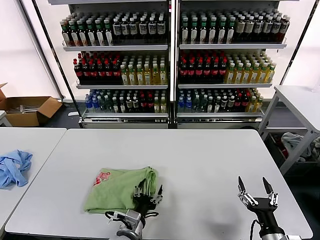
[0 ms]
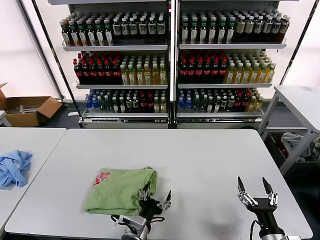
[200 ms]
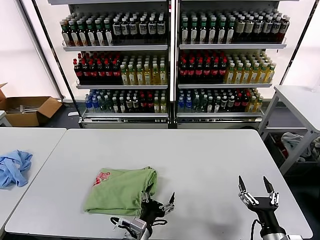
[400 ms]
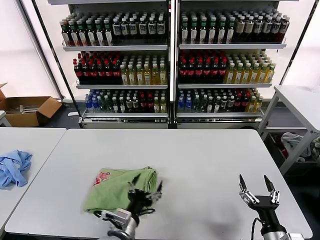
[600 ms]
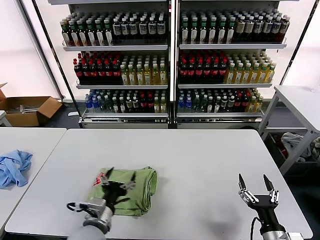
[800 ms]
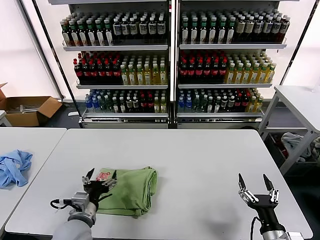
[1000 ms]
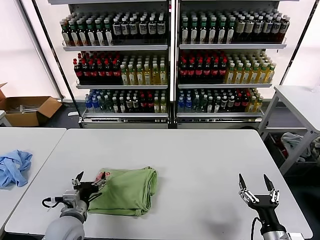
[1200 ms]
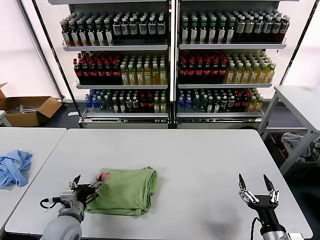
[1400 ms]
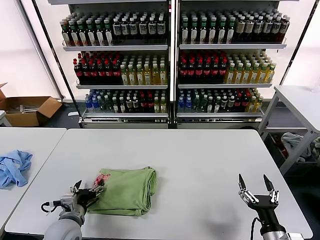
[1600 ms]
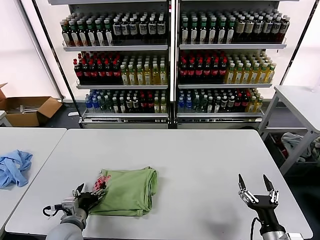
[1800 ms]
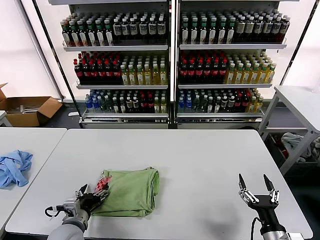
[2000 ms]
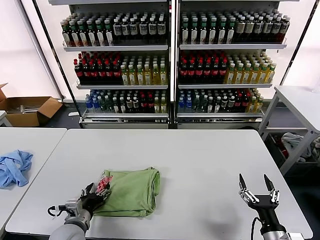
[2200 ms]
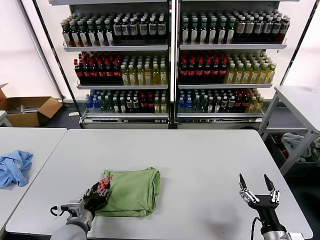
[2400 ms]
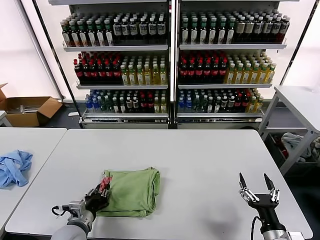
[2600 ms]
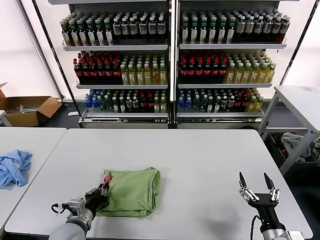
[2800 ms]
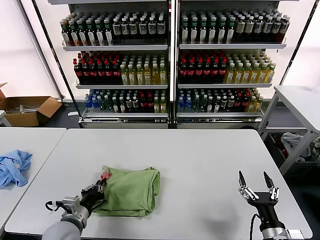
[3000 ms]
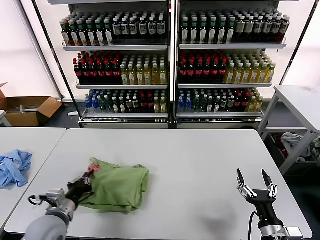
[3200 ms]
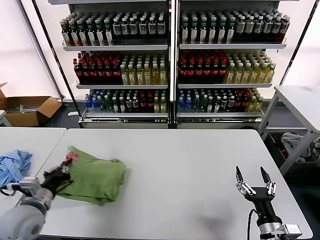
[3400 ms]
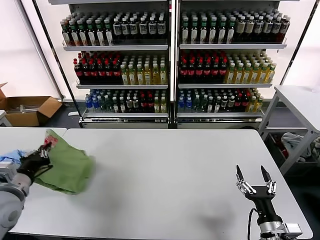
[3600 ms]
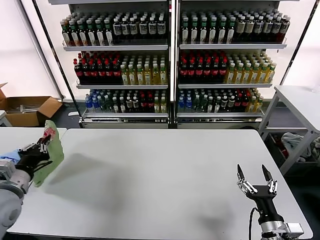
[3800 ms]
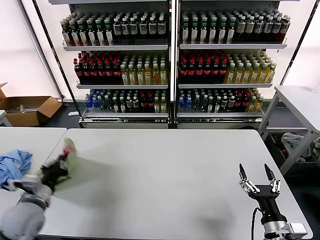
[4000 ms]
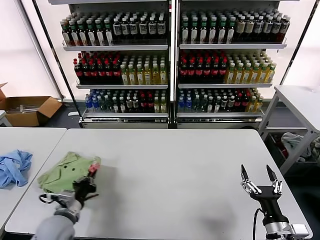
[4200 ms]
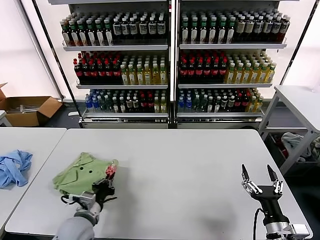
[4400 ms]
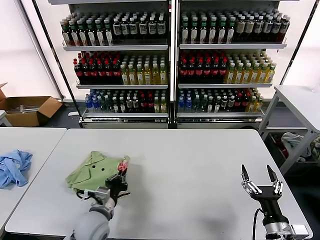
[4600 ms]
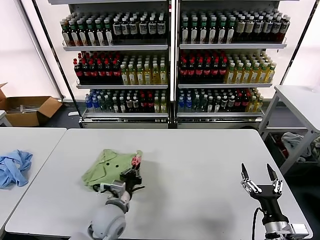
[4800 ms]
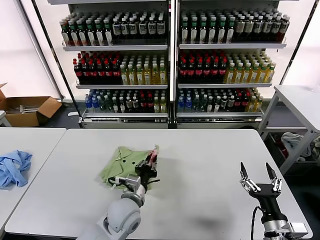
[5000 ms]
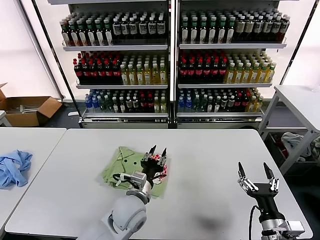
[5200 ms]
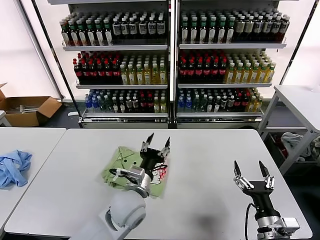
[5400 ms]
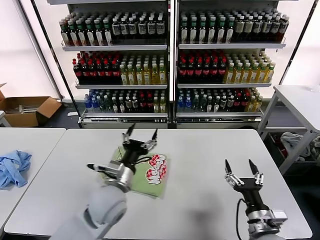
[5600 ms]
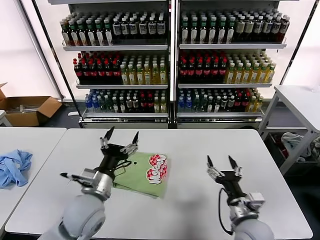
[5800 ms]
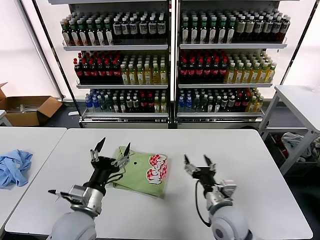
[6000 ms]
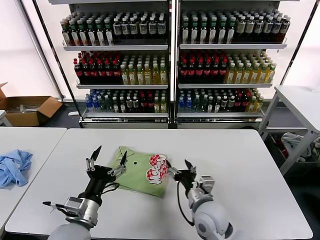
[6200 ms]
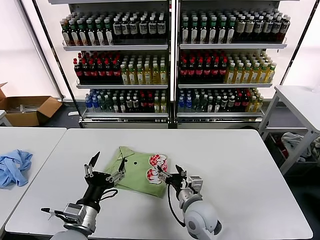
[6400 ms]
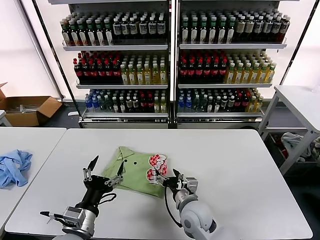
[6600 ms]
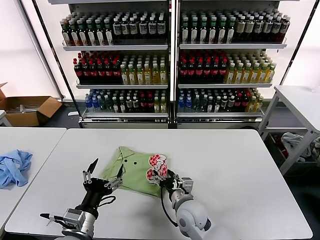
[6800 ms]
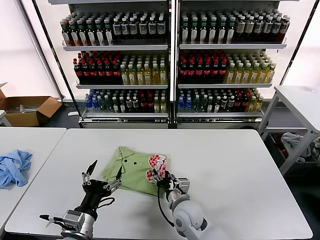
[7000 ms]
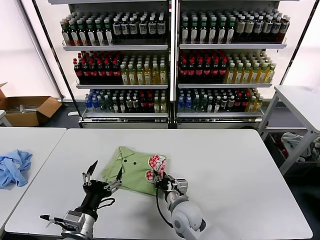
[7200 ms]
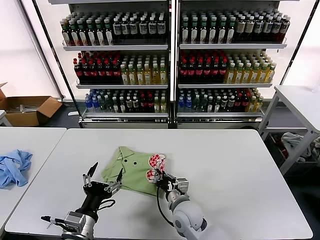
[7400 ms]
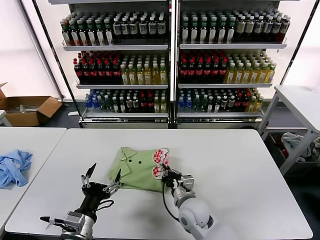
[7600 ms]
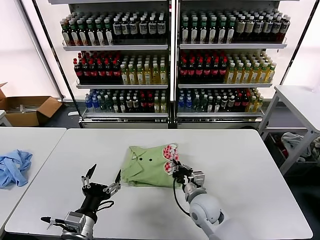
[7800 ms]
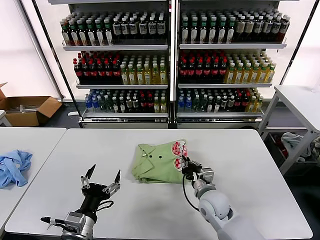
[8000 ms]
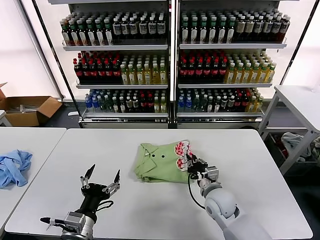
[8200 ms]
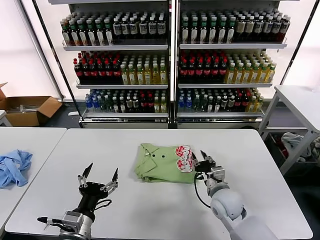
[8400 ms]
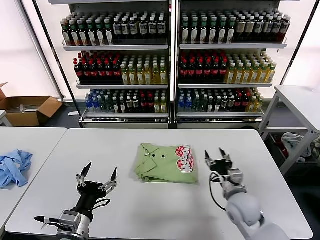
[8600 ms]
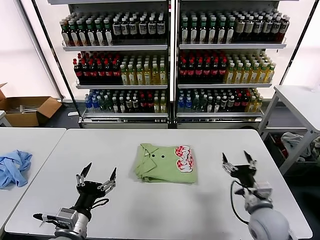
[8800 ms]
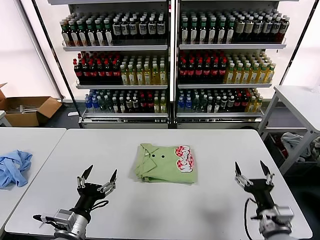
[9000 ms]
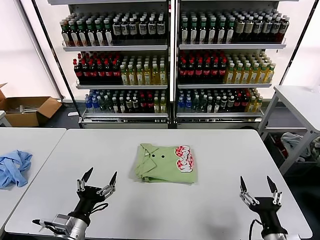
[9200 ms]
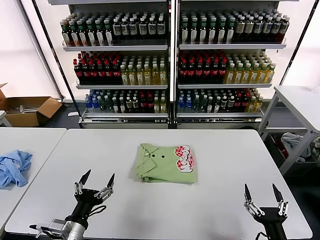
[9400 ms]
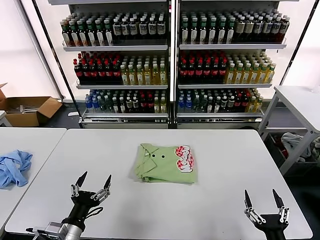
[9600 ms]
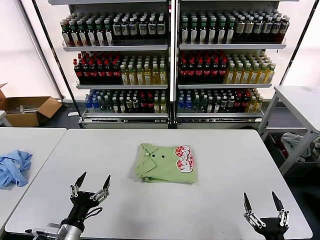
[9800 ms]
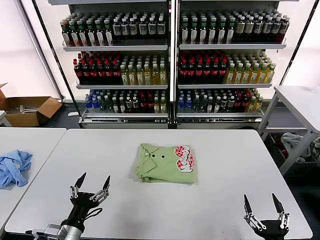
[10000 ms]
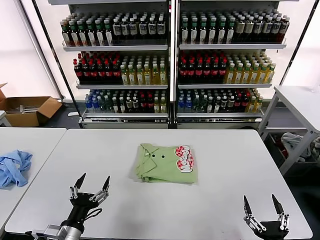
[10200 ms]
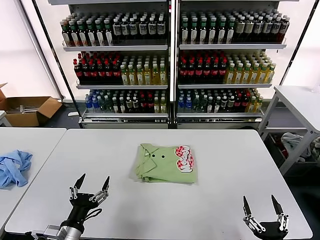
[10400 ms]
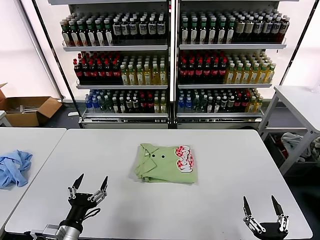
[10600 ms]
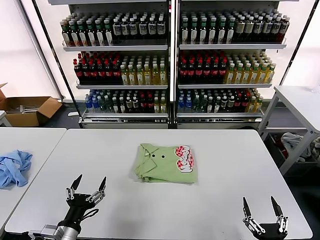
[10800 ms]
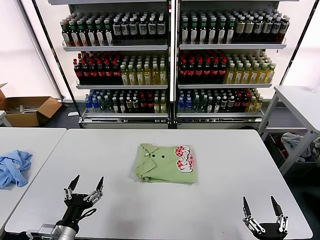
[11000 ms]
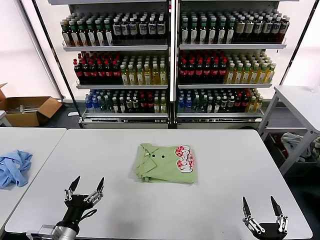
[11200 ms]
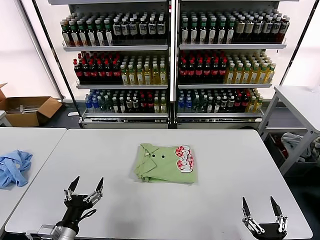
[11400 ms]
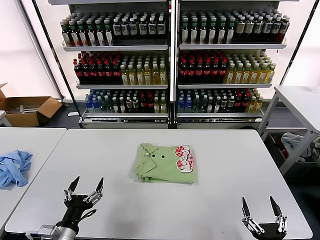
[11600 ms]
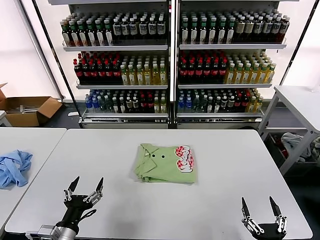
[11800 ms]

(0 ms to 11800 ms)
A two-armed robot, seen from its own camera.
Task of the whole recording: fold and organize the clothes.
Step, 200 ms - 5000 ms: Flip the folded clothes over with left gripper.
Step, 5200 ms - 8400 ms: Drag the clothes to the center of the table.
0 ms - 1400 ms: The left gripper is displaced to the left by roughly 15 cm.
1400 ms - 3000 ms: The left gripper closes.
3000 ms - 4400 ms: The left gripper goes upward and returns, approximately 15 cm each way.
4400 ms - 6000 ms: The right gripper goes approximately 15 cm to the left and forward, while the left gripper shifts some 10 cm upward, moves about 20 cm to the right and comes back, and opens.
6000 ms - 7400 ms: The left gripper heads backward, covering roughly 5 cm; the right gripper travels to the left and downward by roughly 15 cm, and closes.
7400 ms - 8800 ms: The right gripper shifts some 20 cm to the right, and opens its fingers.
8800 ms - 10400 ms: The right gripper goes some 20 cm backward; the left gripper shifts by about 5 cm.
10400 ms - 11800 ms: Both grippers stay put.

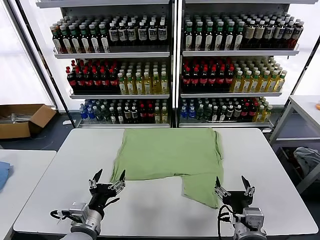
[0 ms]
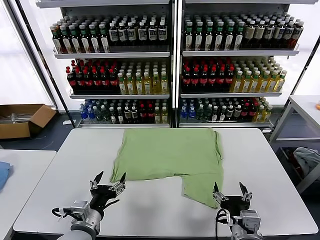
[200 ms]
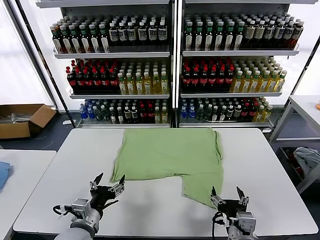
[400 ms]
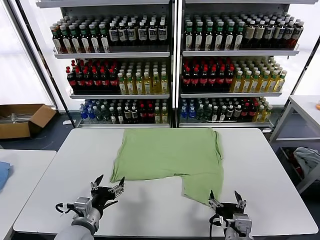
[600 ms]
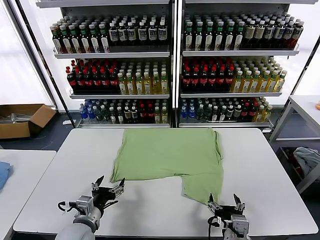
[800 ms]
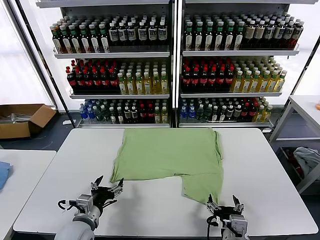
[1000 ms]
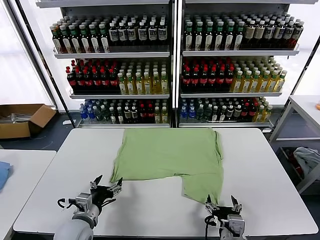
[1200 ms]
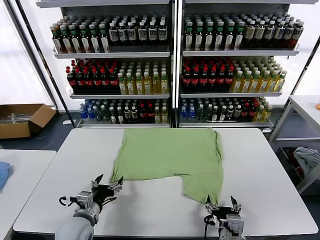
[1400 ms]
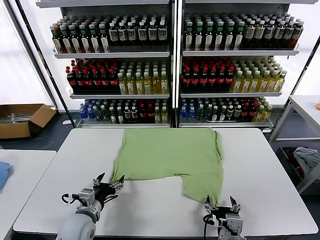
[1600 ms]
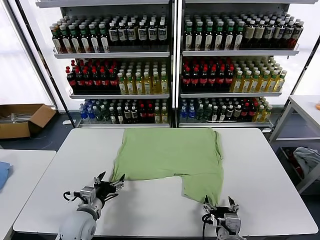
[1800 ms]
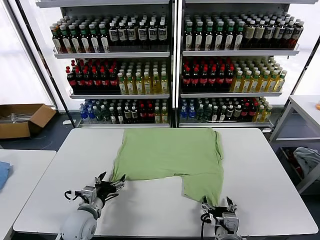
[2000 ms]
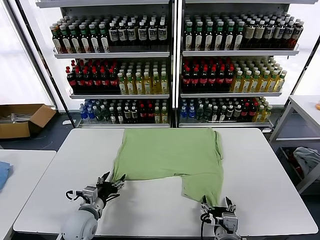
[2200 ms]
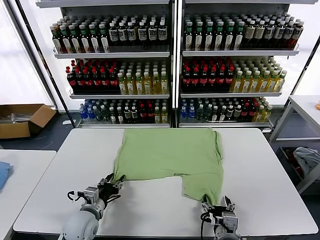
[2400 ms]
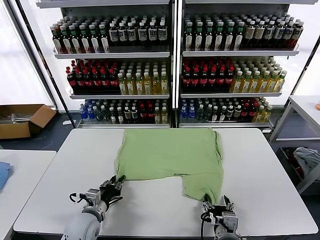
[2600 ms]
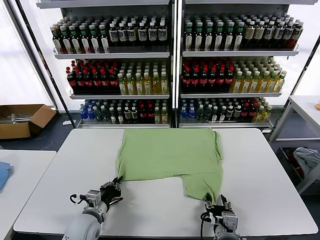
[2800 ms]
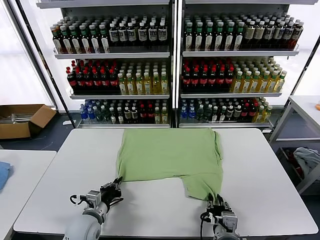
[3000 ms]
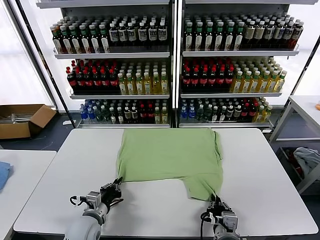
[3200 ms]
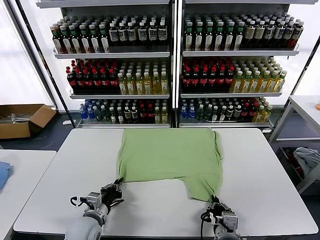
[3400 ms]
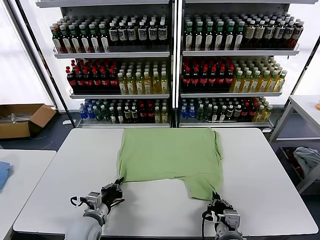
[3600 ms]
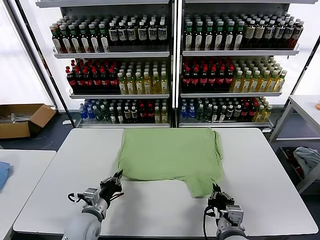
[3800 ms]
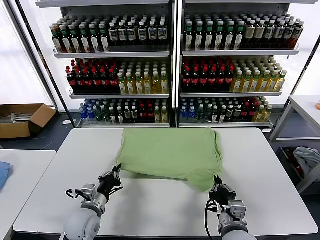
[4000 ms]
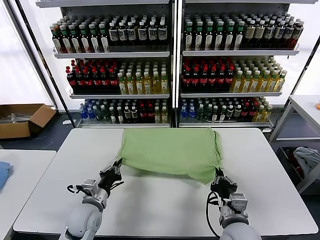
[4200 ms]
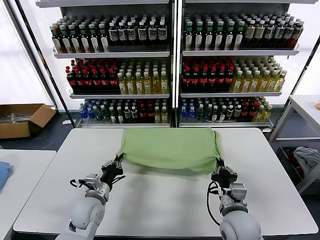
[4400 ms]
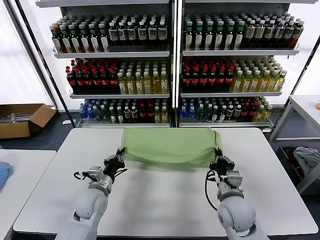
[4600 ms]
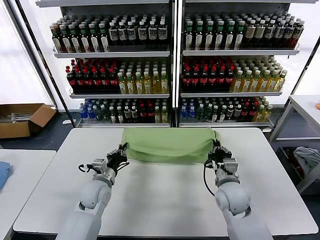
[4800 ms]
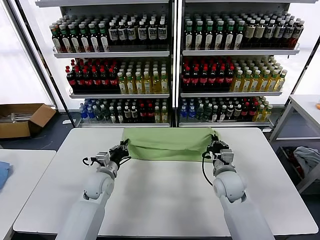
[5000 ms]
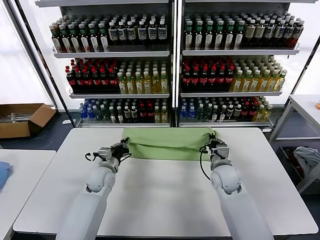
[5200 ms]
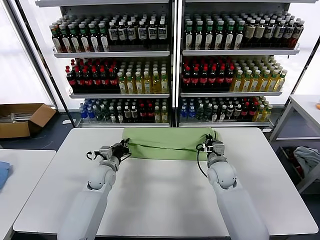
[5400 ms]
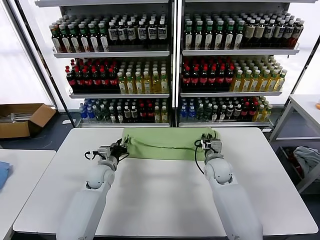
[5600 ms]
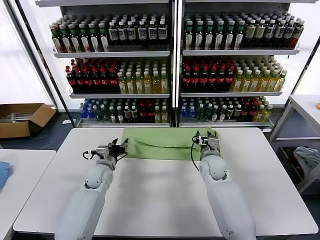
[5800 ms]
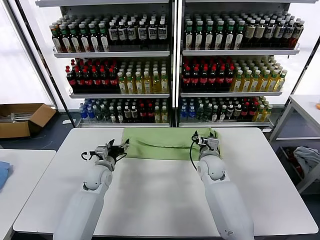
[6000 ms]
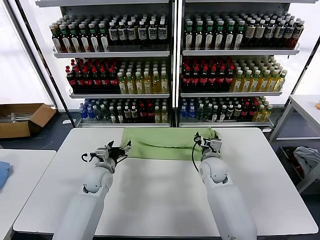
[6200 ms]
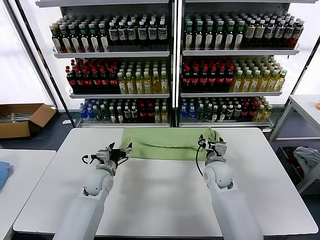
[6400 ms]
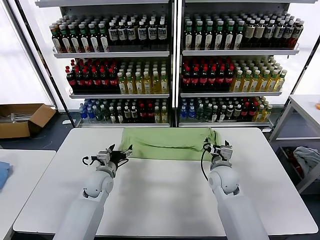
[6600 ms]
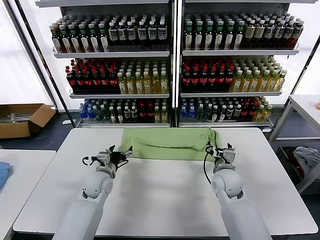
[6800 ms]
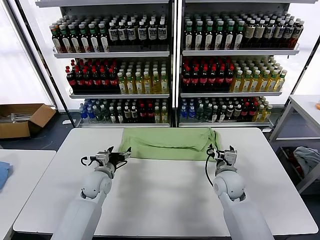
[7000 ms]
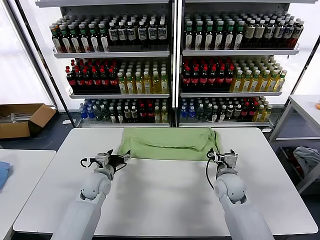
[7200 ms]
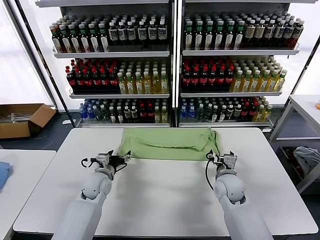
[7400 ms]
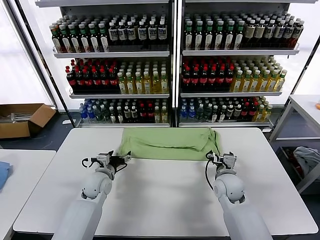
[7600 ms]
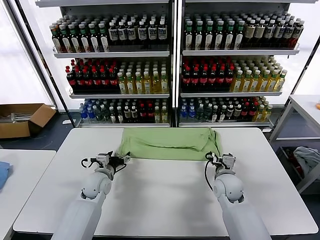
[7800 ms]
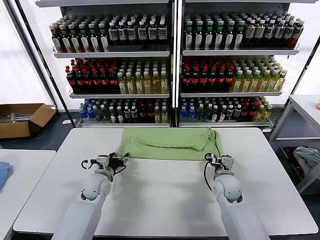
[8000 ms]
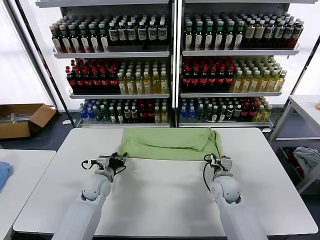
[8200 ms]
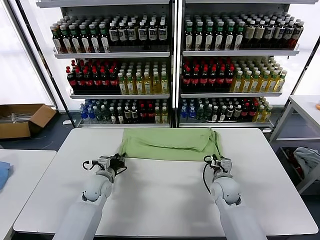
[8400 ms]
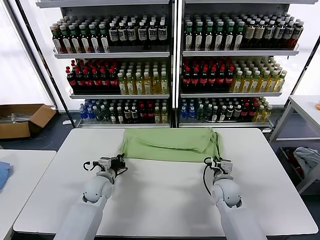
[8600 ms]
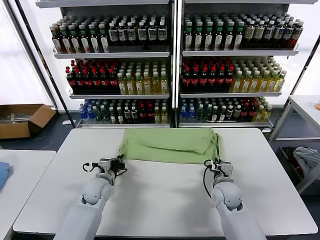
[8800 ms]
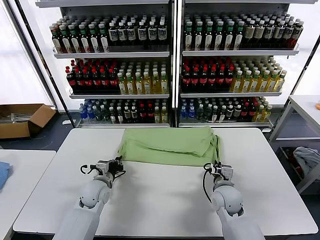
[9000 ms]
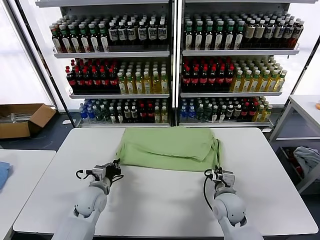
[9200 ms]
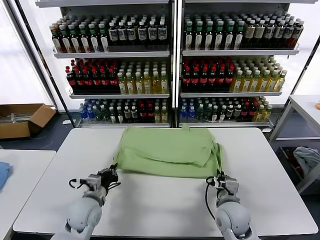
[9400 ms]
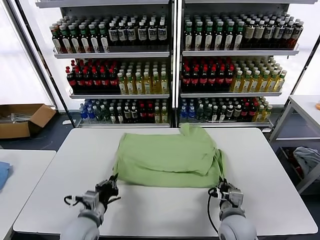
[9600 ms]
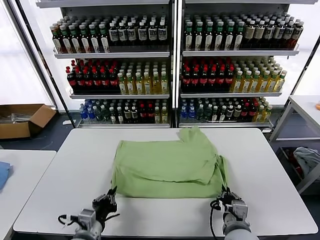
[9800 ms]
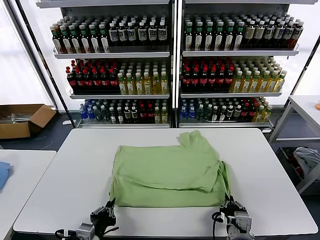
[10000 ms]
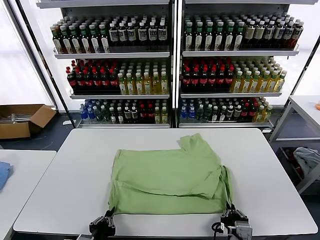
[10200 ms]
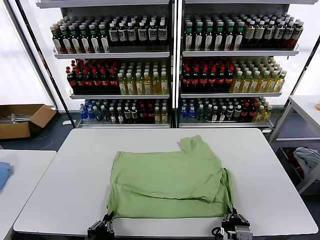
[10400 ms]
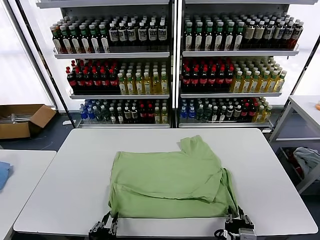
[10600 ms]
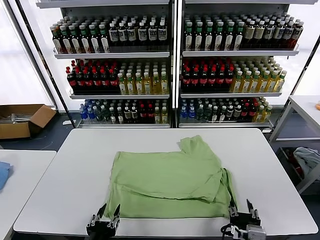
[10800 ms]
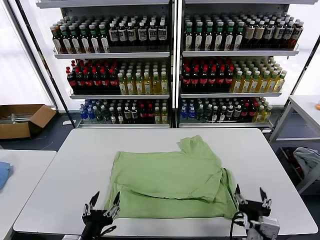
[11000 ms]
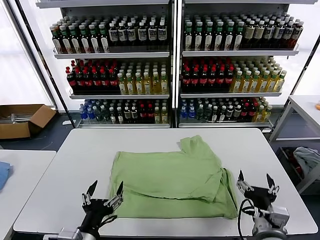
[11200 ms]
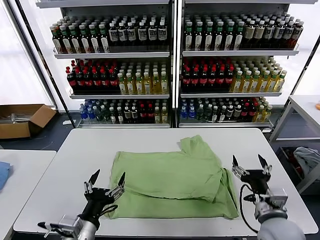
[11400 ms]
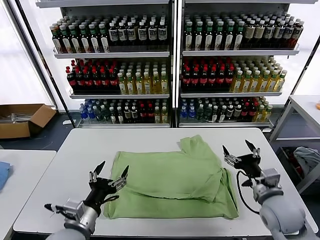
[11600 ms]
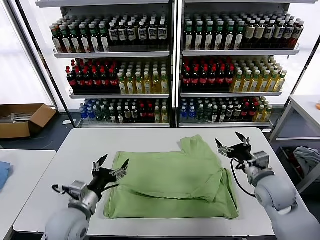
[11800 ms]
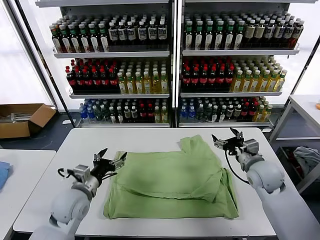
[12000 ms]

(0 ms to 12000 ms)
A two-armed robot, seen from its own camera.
Task of the whole recording: fold and organize the clothes.
Step, 0 ms - 3200 ms: use both grippers simultaneously to clamp the lower edge of the clothing fabric.
Step, 3600 ms - 6000 ms: use both grippers to drag the lower edge of the fabric forward and fold it over the upper edge.
Step, 6200 ms - 10600 ms: Drag the clothes downward with both gripper.
1600 ms - 3000 ms: The right gripper closes up. Meanwhile the left gripper closes up.
3000 ms - 4400 ms: The left gripper changes place by about 5 cm, while the right gripper goes approximately 10 cm forward.
4400 ms - 6000 ms: The grippers both shift forward by approximately 15 cm. The right gripper opens up, while the left gripper opens its fingers.
6000 ms - 7600 ms: The right gripper shifts roughly 5 cm backward.
7600 ms - 9000 ms: The right gripper ends up approximately 5 cm from where it was, and closes, while the left gripper closes.
9000 ms - 10400 ms: The grippers both shift backward by about 25 cm.
10400 ms - 12000 ms: The left gripper heads forward, covering some 20 cm, and opens. Meanwhile the right gripper heads forward and to the right, covering roughly 30 cm, and opens up.
